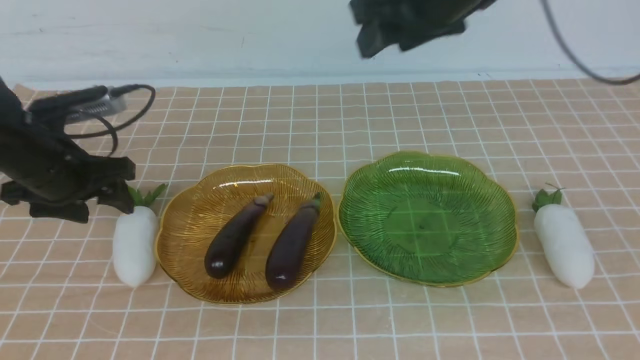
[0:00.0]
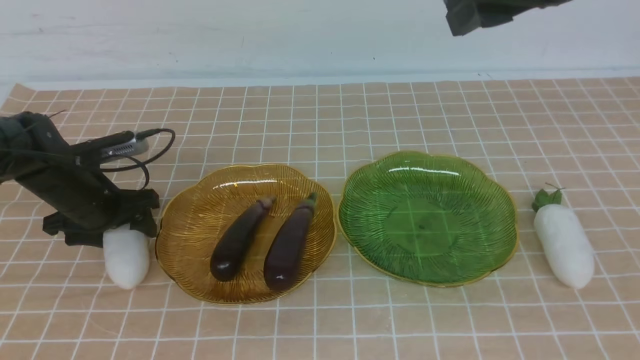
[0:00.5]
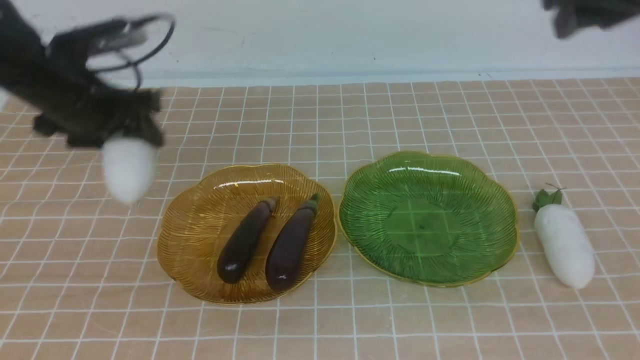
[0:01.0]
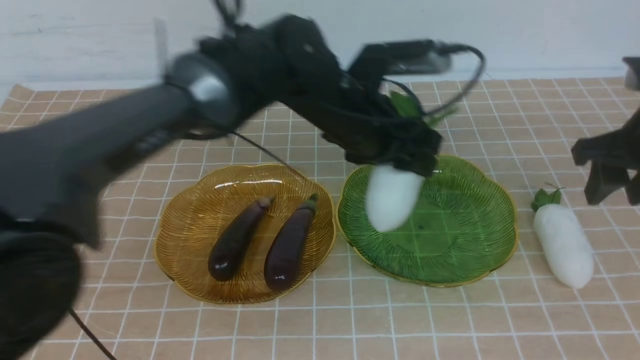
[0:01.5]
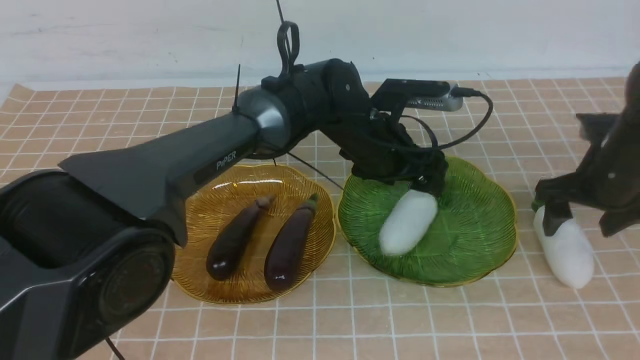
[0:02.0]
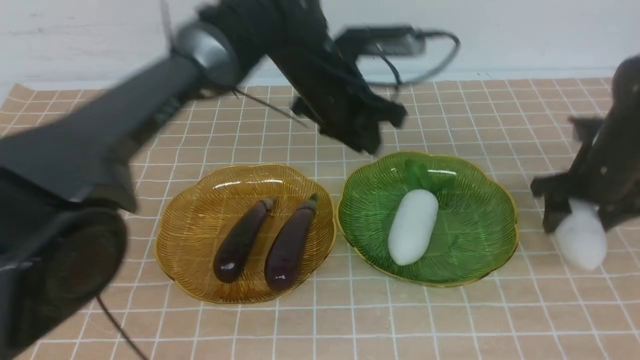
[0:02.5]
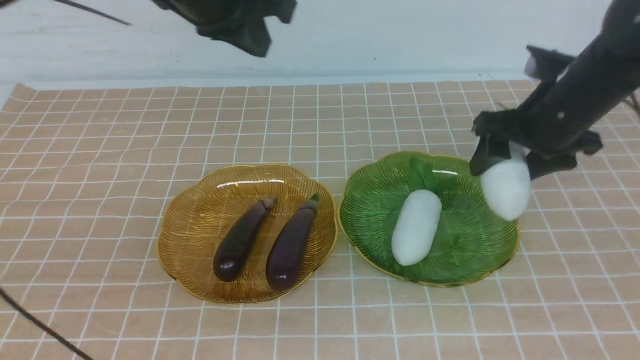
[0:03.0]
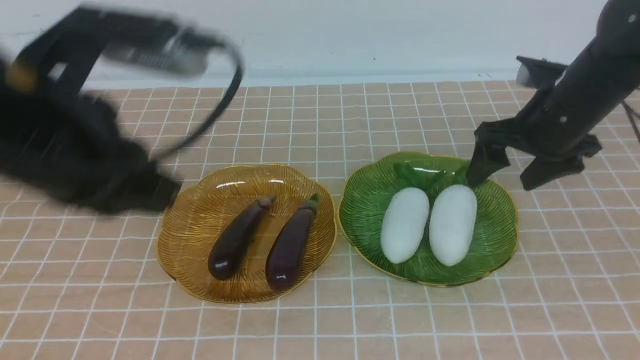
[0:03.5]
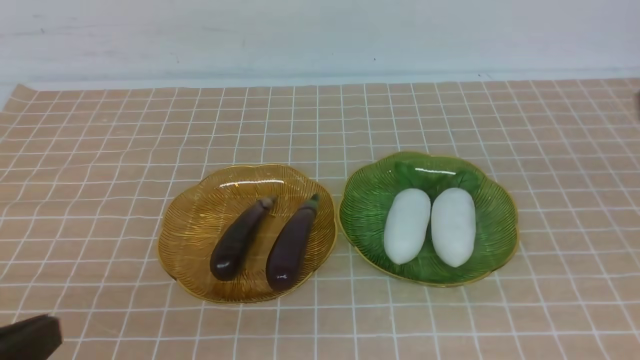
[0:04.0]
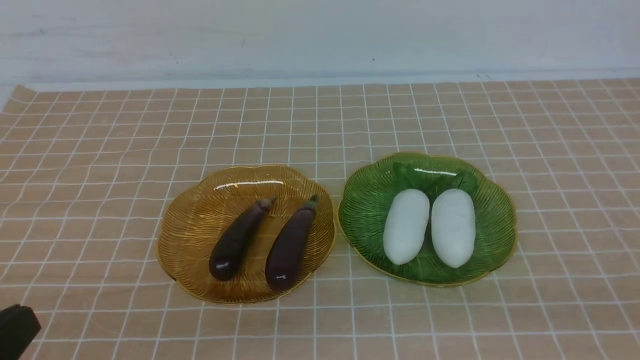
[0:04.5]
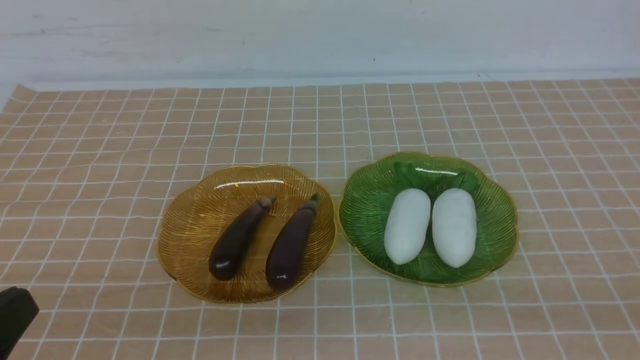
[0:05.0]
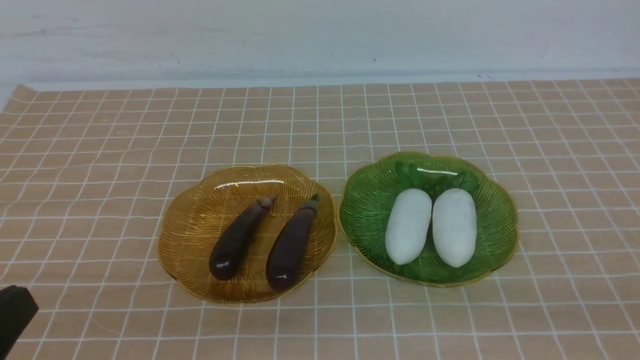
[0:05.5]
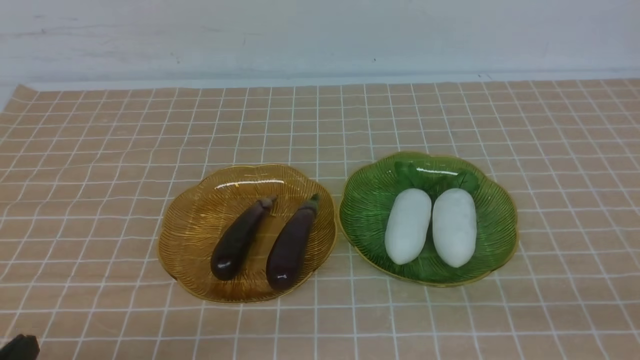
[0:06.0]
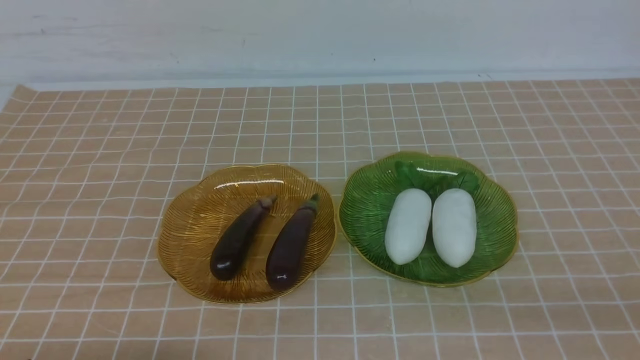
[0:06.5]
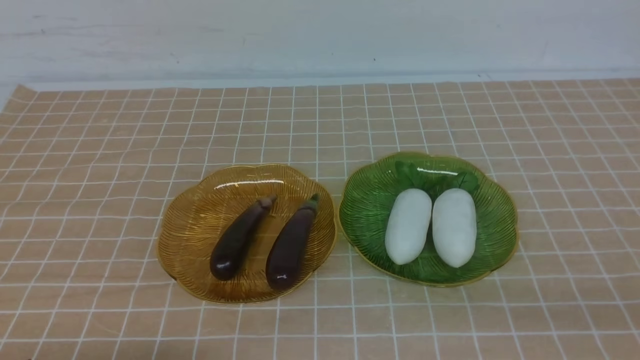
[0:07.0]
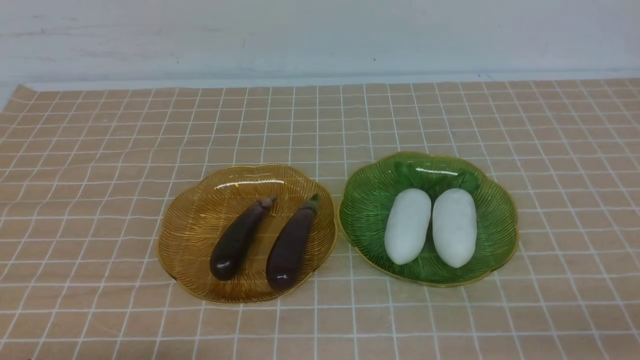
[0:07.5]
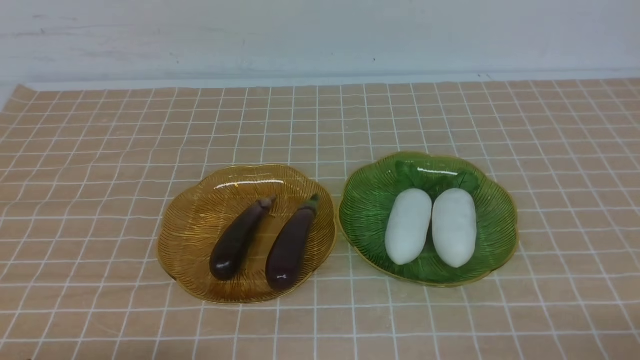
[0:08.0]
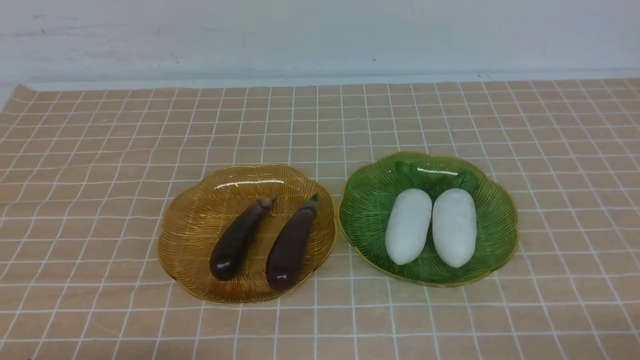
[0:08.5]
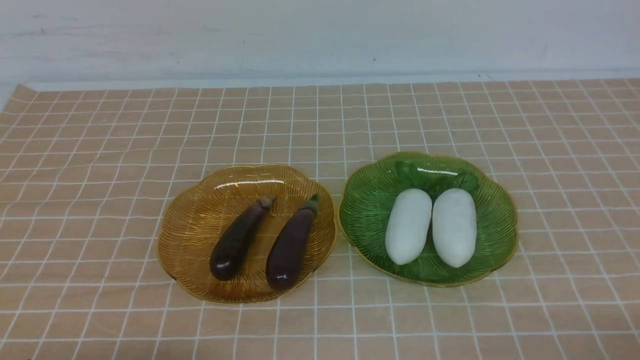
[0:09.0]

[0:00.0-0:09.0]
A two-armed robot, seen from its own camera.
Step, 0:00.0 to 0:02.0: use the left arm to grab a radish and put it into the right plate.
Step, 0:02.5 to 0:03.5: use the right arm to grab a radish and put it into the right plate.
0:00.0 to 0:02.0: The right gripper heads downward and to the right, covering about 20 cm; the left gripper goes about 25 cm to the right and upward, and closes up.
0:02.0 to 0:04.5: The left gripper shifts about 40 cm backward and to the left; the right gripper heads backward, covering about 35 cm, and closes its fingers.
0:04.5 to 0:07.0: The left gripper is displaced downward by some 10 cm.

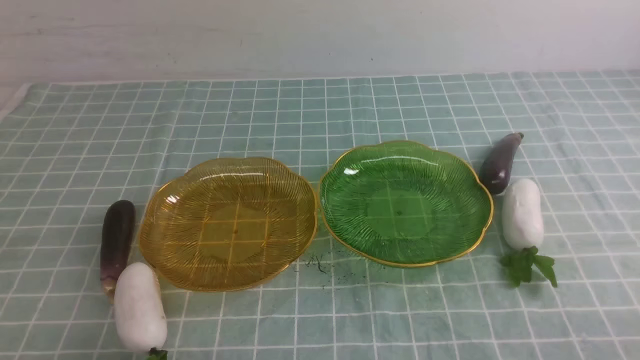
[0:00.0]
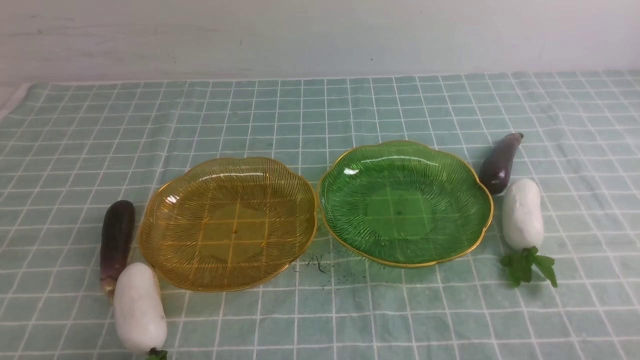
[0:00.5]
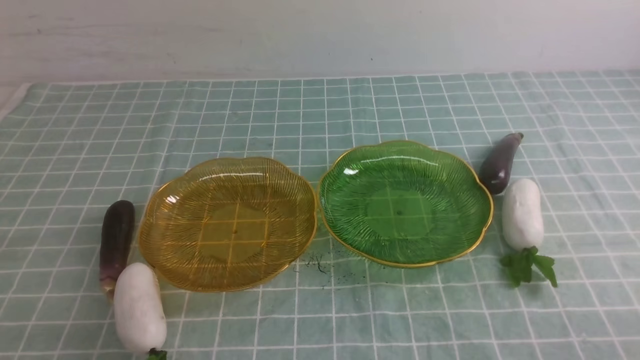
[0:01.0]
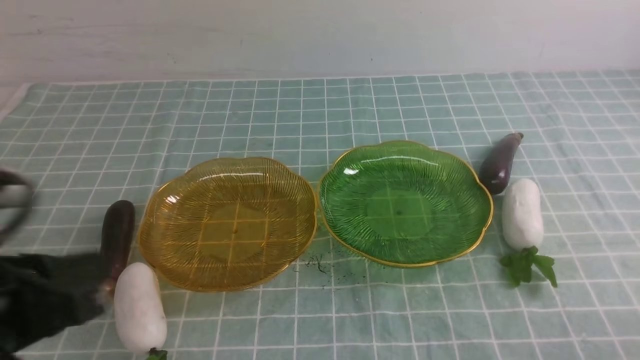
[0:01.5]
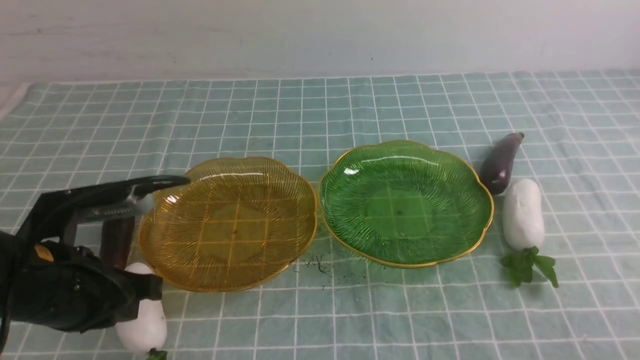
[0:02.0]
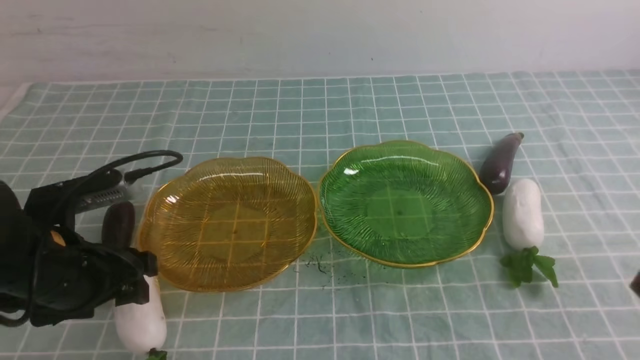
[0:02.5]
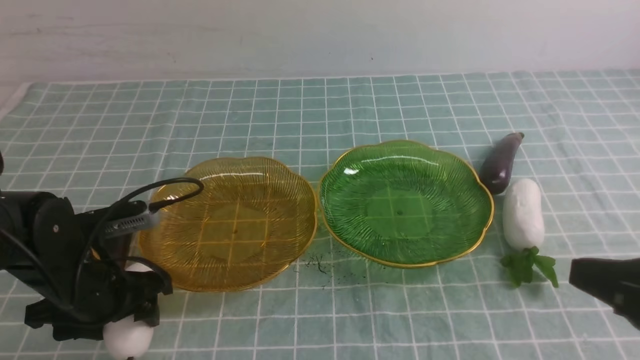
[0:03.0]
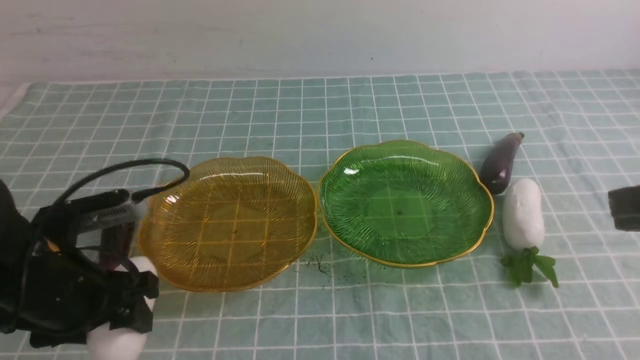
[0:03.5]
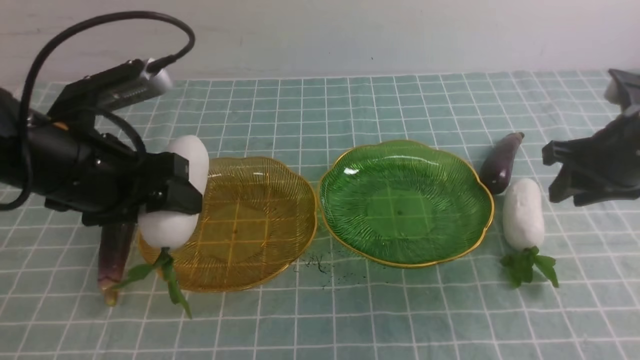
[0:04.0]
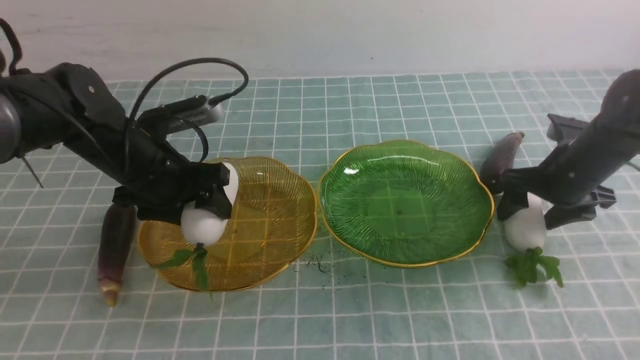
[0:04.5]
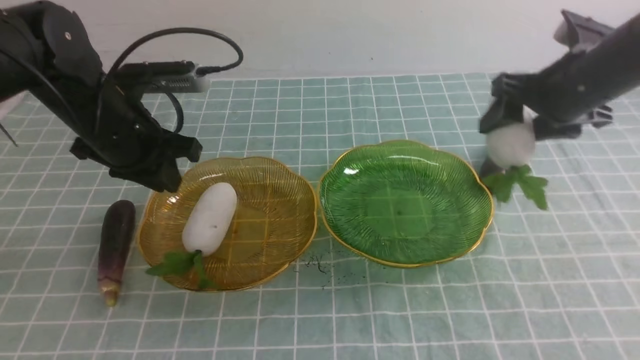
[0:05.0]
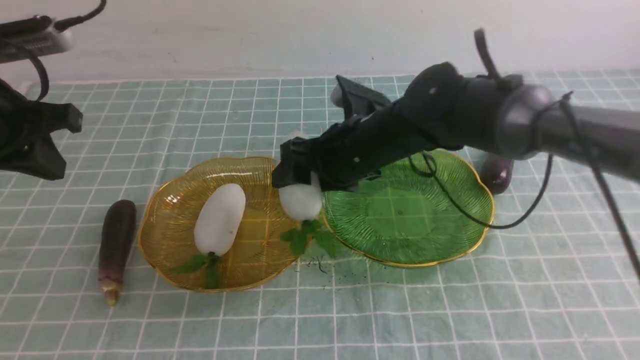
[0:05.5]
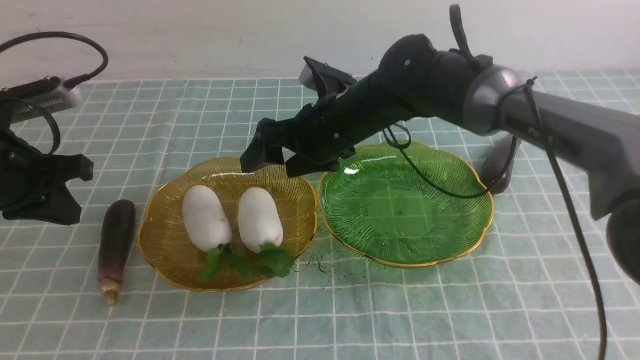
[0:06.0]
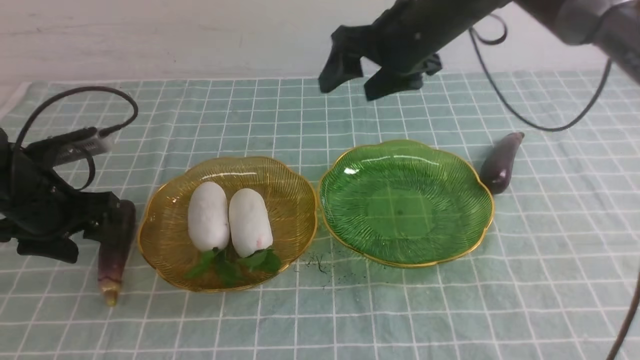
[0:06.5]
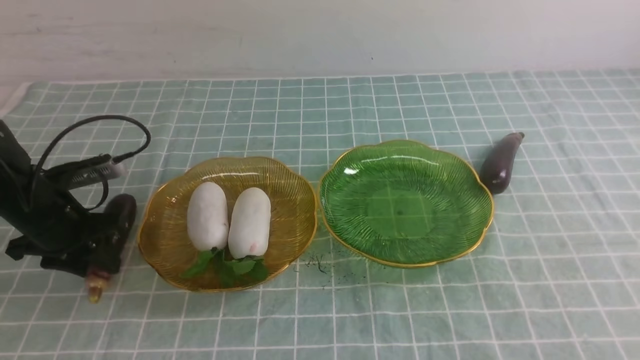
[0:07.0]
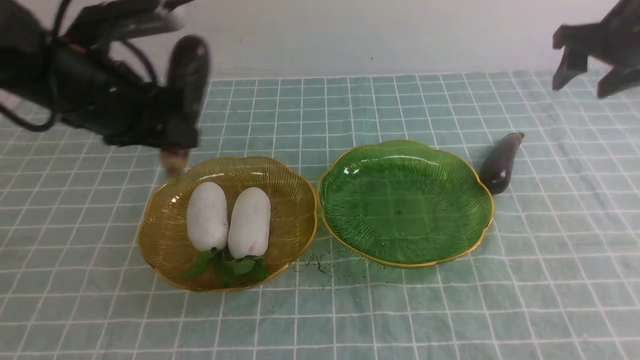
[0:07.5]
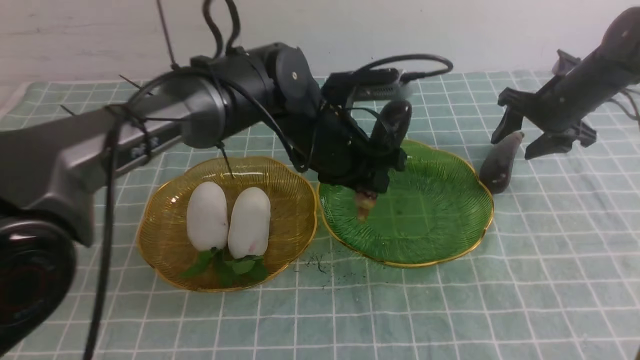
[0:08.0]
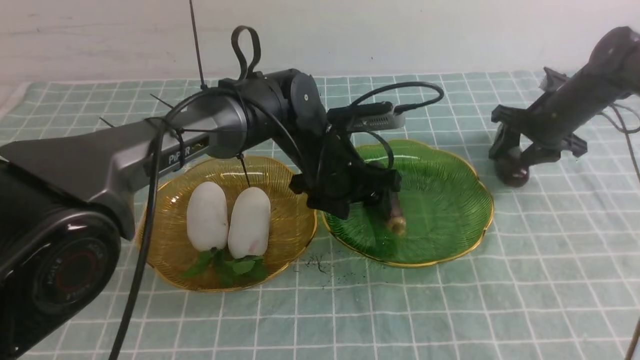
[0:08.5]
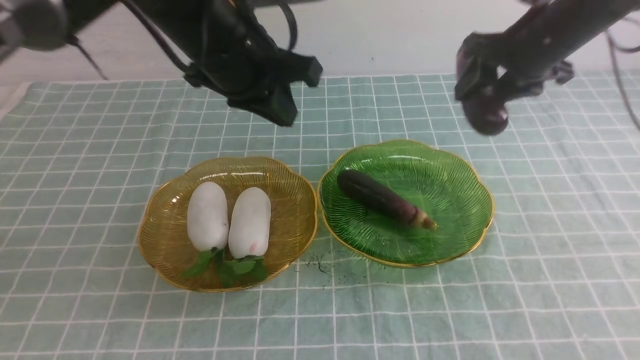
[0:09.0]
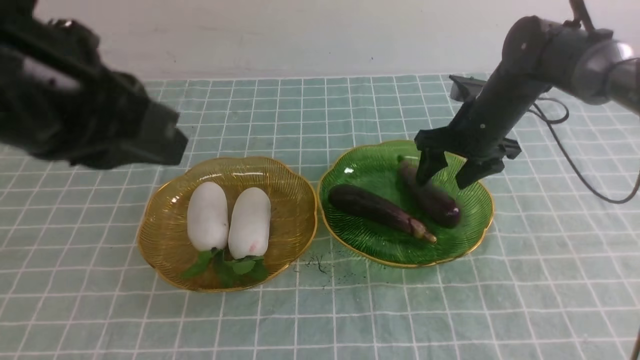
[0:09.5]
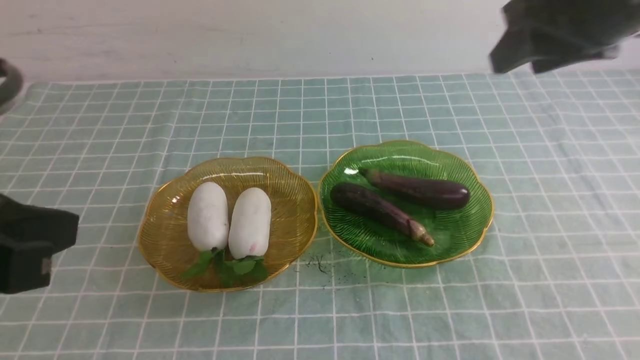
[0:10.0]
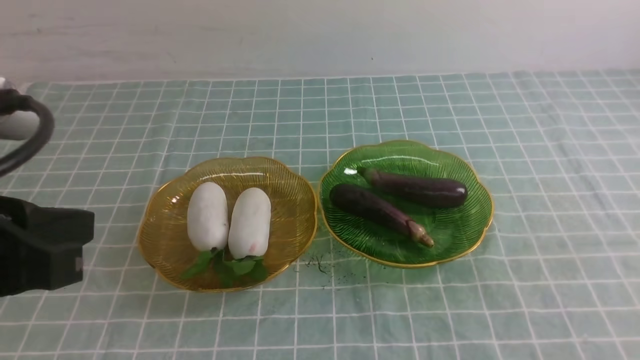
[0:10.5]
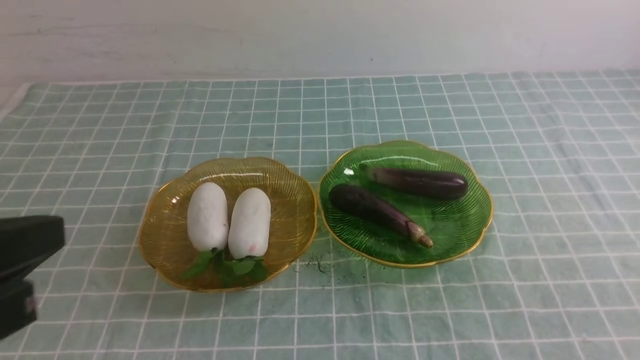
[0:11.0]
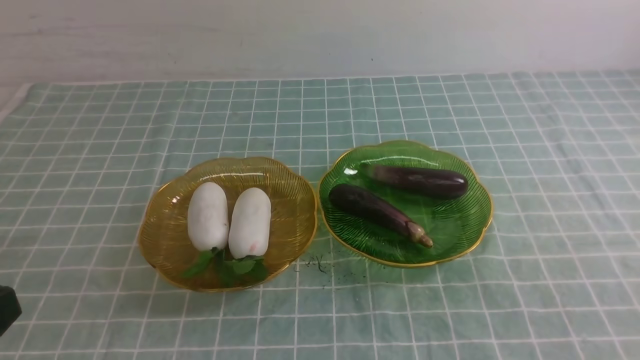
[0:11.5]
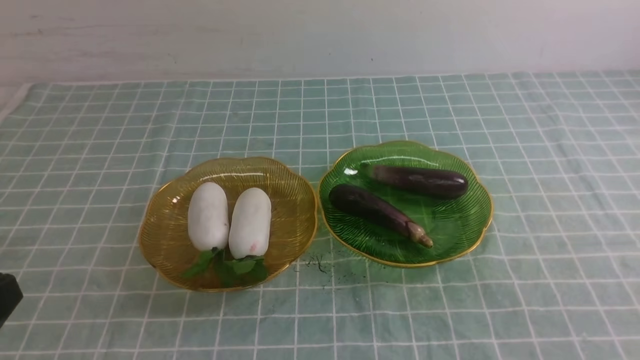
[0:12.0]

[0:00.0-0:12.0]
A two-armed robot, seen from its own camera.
Step, 0:00.0 to 0:04.5: use the left arm to grab a radish and put it into the left plate.
Step, 0:05.0 to 0:05.5: use the right arm to grab a radish and put it into the left plate.
Step, 0:06.0 to 0:08.5: use the left arm to grab an eggplant and put it into the right plate.
Step, 0:09.0 to 0:09.5: use the right arm to grab an eggplant and put it into the right plate.
0:00.0 to 0:02.0: The left gripper shifts roughly 15 cm forward and upward.
0:02.0 to 0:04.0: The right gripper moves forward, roughly 30 cm, and opens its fingers; the left gripper goes approximately 10 cm forward and upward, and opens up.
0:04.0 to 0:06.0: The right gripper moves to the left, some 25 cm, and opens up. The left gripper travels to the left by roughly 10 cm, and closes.
0:06.0 to 0:08.0: The grippers both shift to the right by about 30 cm. The left gripper opens.
0:08.0 to 0:10.0: The right gripper moves up and down over about 25 cm, changing direction 2 times, while the left gripper travels backward, to the left and upward by some 35 cm, and closes.
0:10.0 to 0:12.0: The left gripper travels downward and backward by approximately 15 cm; the right gripper heads backward, covering roughly 25 cm, and closes up.
